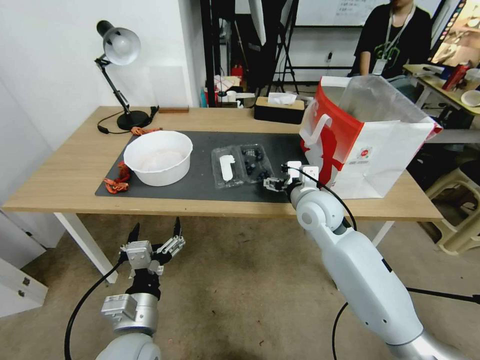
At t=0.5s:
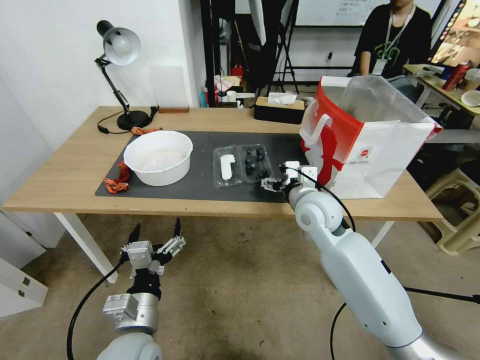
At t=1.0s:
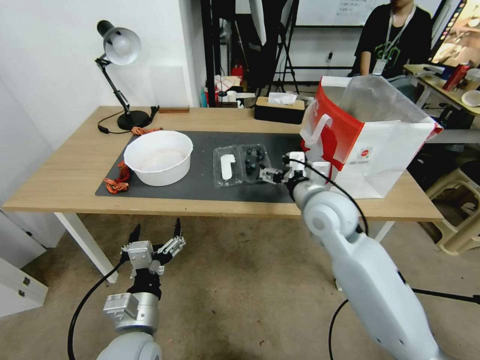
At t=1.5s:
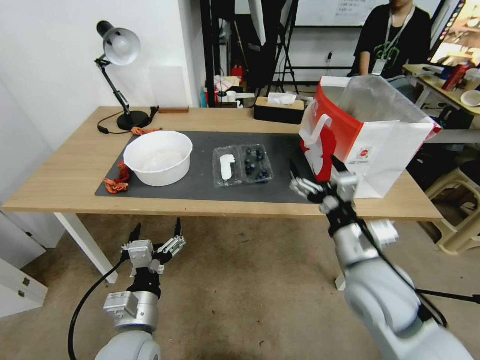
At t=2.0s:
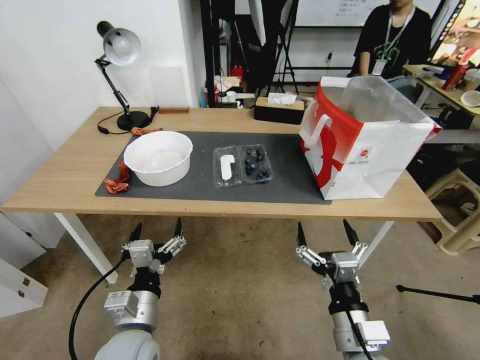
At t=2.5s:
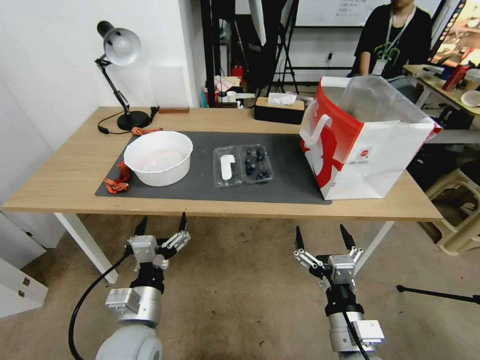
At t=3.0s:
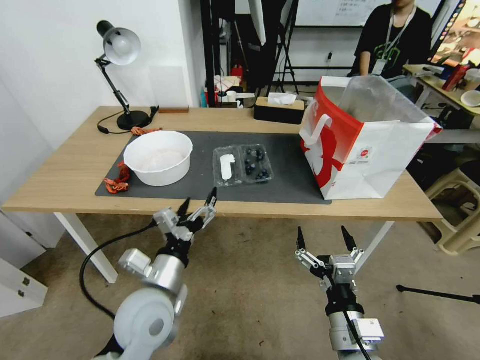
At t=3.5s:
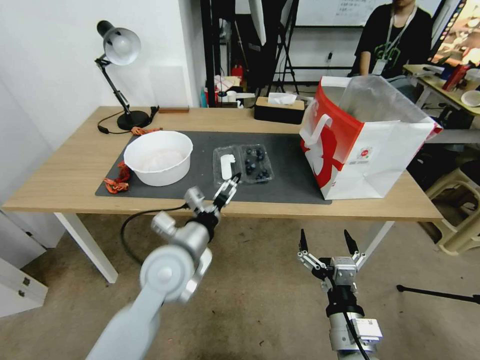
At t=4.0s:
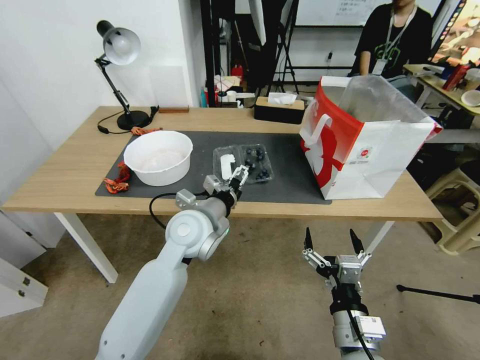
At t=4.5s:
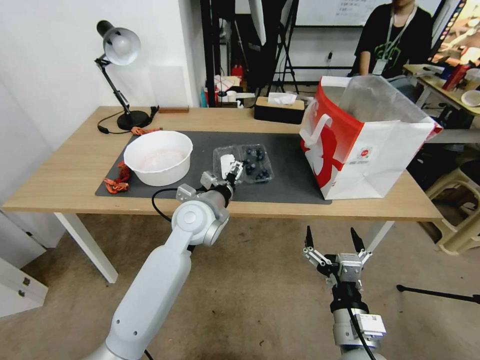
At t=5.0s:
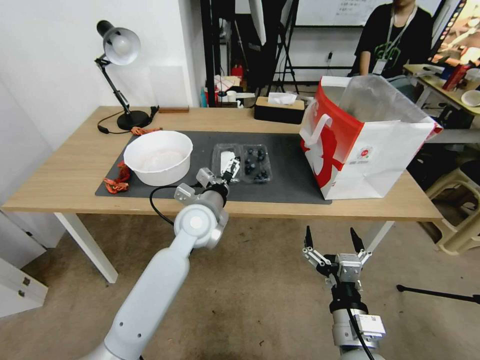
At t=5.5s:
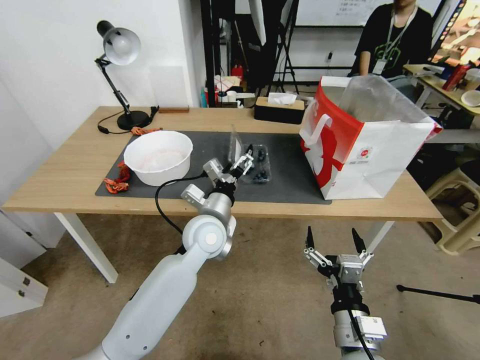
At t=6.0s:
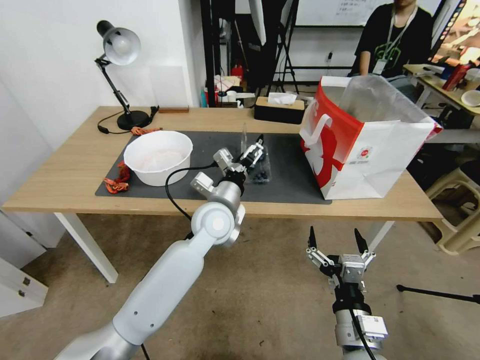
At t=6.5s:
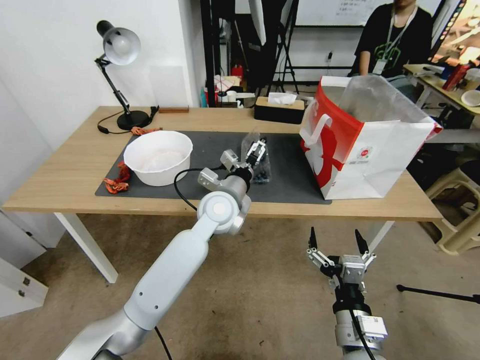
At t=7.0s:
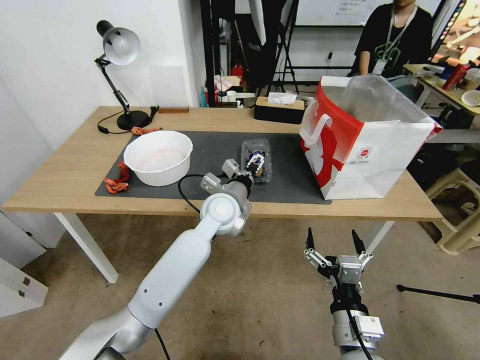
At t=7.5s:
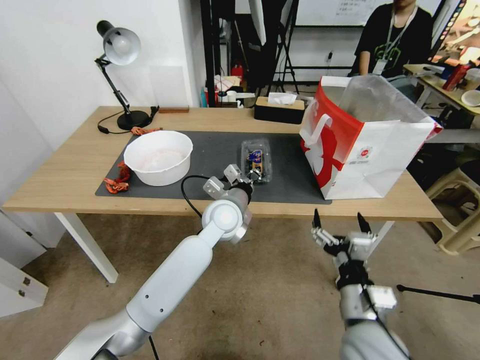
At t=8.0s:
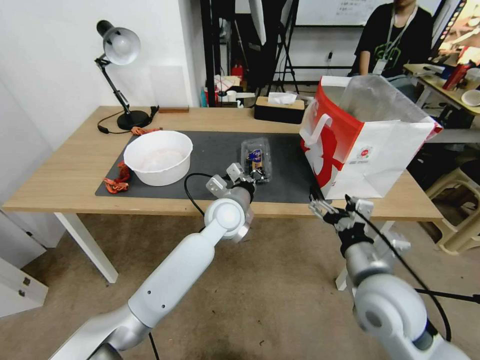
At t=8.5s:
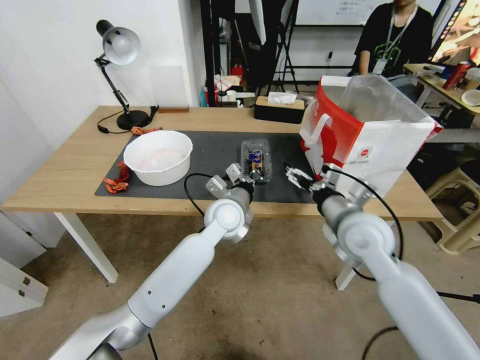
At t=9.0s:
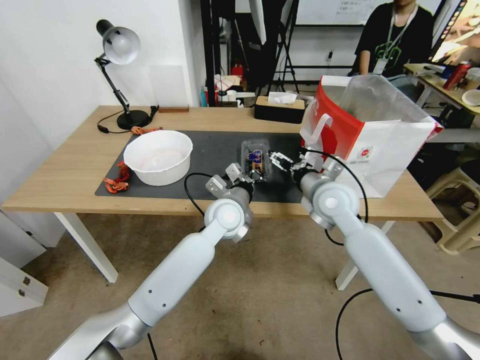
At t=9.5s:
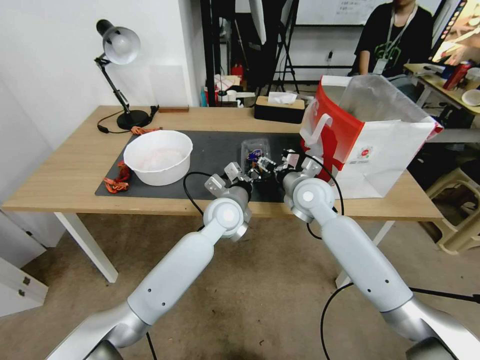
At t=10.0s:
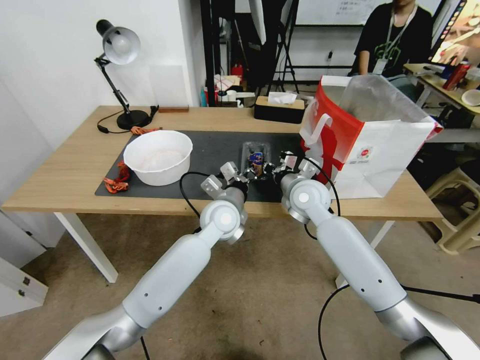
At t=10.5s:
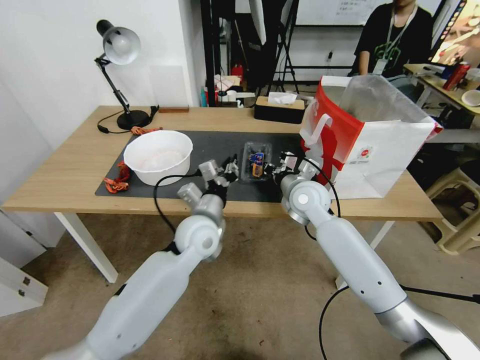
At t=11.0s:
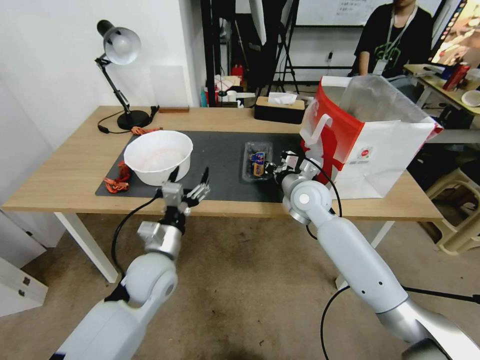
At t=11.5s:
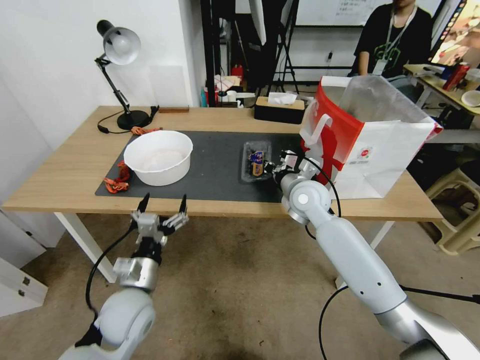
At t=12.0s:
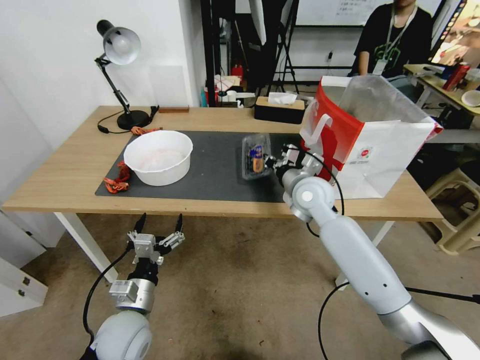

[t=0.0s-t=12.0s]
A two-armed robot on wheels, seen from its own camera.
Task of the whole recording: Close the takeout container lid, then place the container into the takeout bag.
t=0.0s to t=2.0s: The right gripper shifts some 30 cm backward.
t=2.0s to t=4.0s: The left gripper heads forward, upward and to the right, covering some 25 cm.
t=4.0s to t=6.0s: The left gripper ends up some 5 cm from where it was.
t=6.0s to t=8.0s: The left gripper closes, while the right gripper shifts some 15 cm forward and upward.
t=8.0s to t=10.0s: The right gripper is displaced forward by about 25 cm, and closes.
t=10.0s to t=12.0s: The left gripper shifts about 30 cm backward, to the left and downward, and opens up.

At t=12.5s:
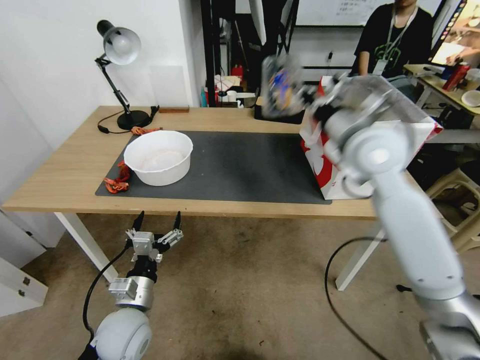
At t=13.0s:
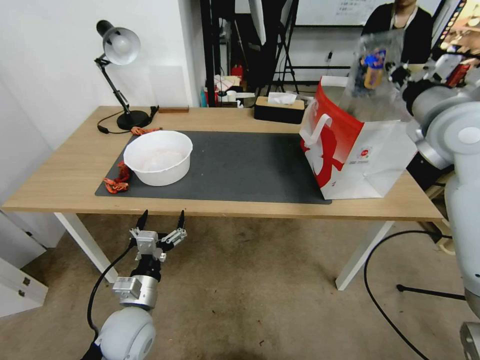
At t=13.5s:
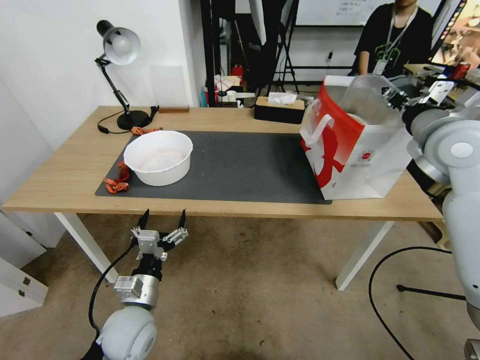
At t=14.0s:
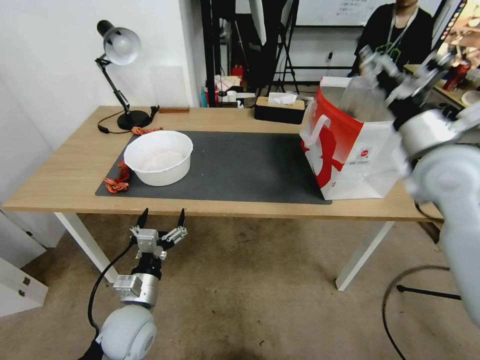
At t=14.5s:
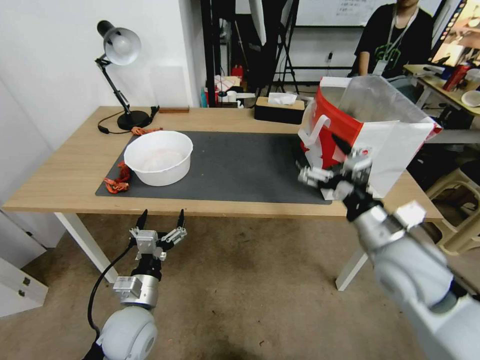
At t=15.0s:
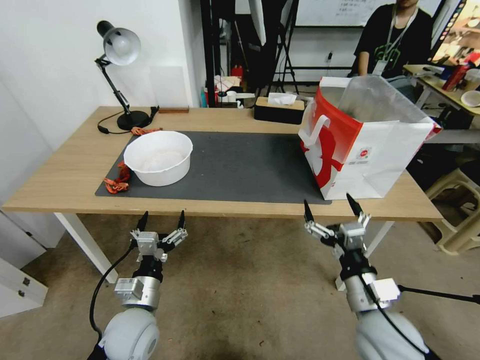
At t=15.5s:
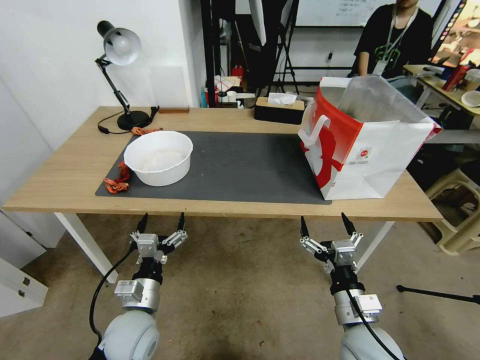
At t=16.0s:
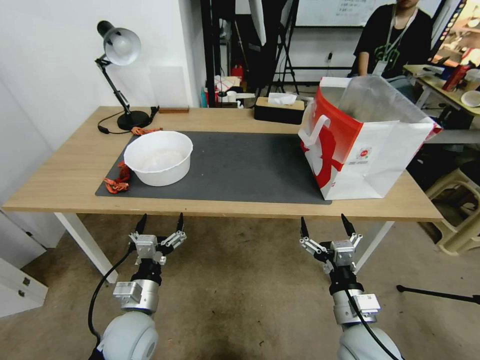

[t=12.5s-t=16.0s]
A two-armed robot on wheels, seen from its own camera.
Task of the whole recording: Close the takeout container lid, then place the container into the takeout bag.
t=12.5s to t=14.5s: The right gripper moves backward, downward and to the right, approximately 20 cm, and opens up.
t=14.5s to t=16.0s: The right gripper goes roughly 20 cm downward and backward.
